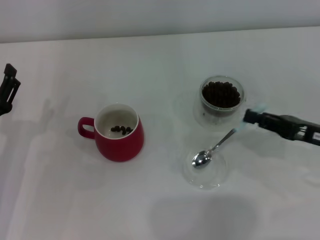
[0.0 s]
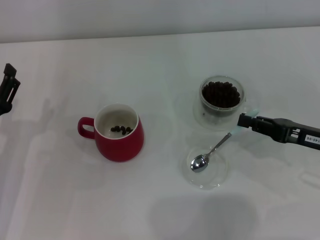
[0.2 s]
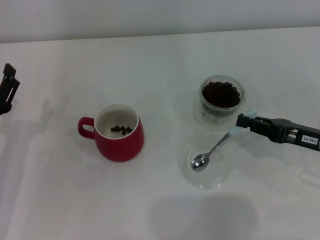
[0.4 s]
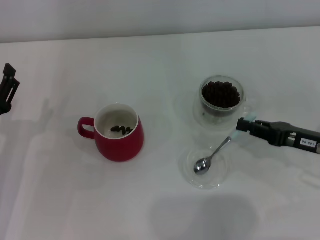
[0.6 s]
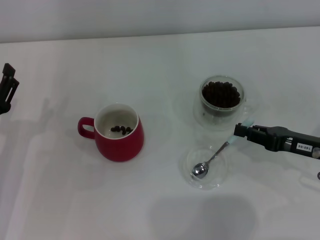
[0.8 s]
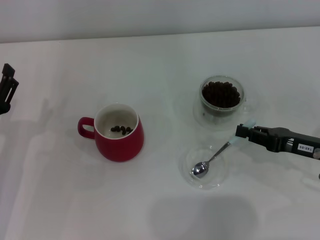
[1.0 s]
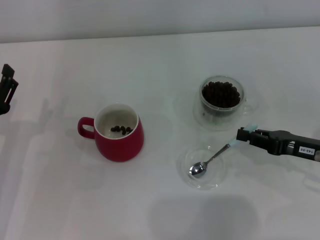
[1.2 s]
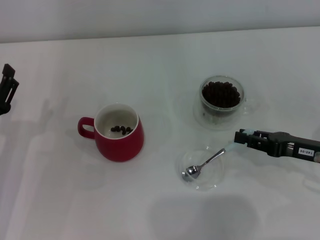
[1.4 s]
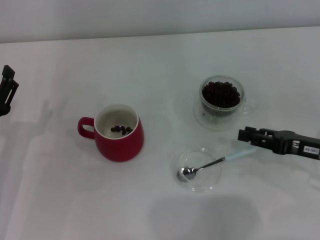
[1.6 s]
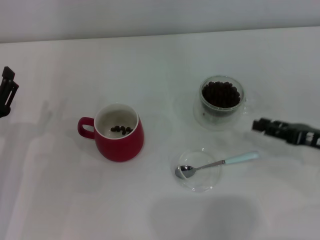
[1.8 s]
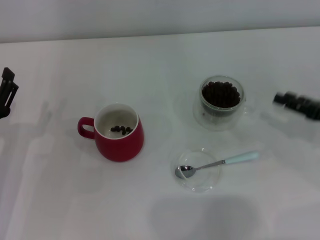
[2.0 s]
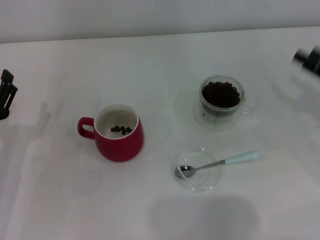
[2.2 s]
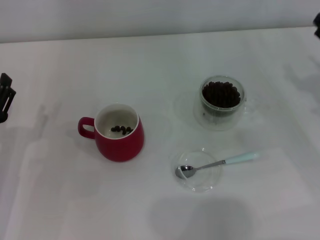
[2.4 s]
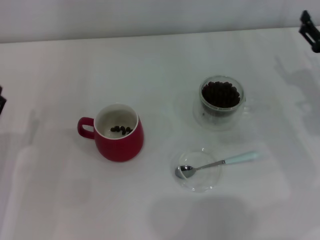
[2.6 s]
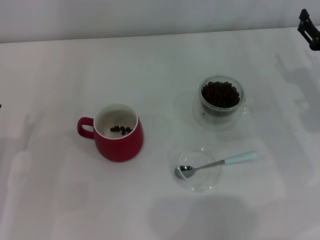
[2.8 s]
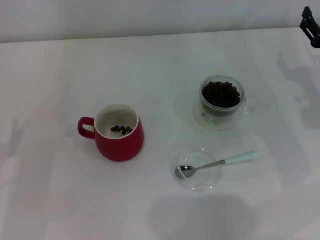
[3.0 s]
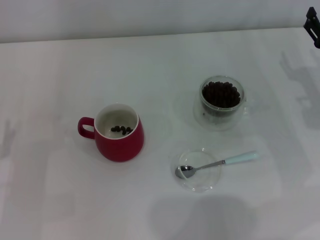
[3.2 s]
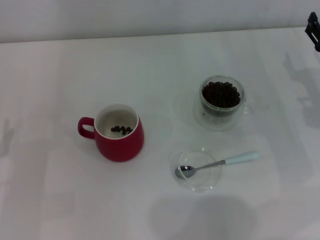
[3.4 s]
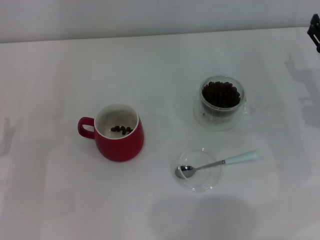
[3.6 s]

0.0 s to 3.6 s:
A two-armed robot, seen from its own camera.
Task of the whole recording: Use a blue spoon to take out the coffee beans from the glass and pour them into the red cup.
Step, 0.0 to 1.6 s: Place the spoon back in its original place with the right gripper.
0.0 to 1.8 s: The right gripper opens.
1.8 to 3.6 s: The right gripper heads forward, covering about 5 cm, and opens up. The left gripper changes place by roughly 5 cm.
